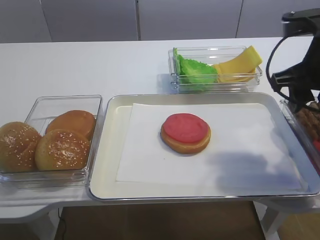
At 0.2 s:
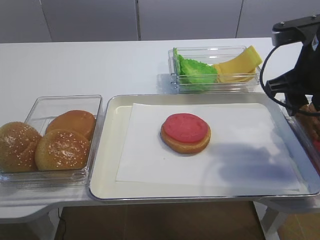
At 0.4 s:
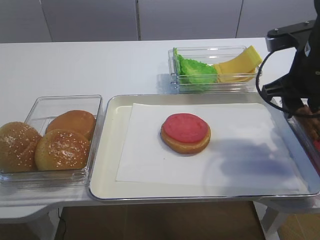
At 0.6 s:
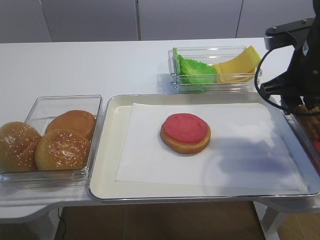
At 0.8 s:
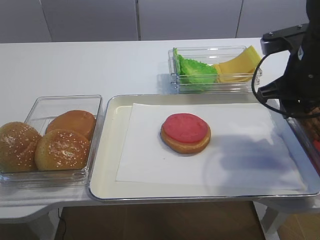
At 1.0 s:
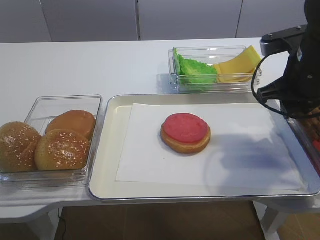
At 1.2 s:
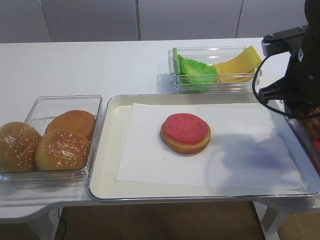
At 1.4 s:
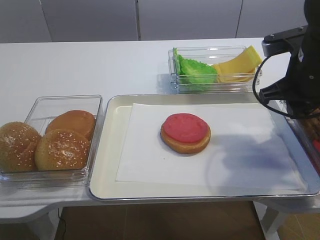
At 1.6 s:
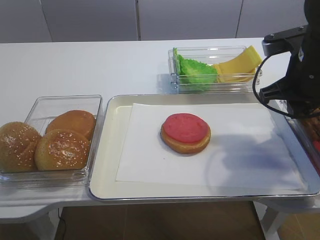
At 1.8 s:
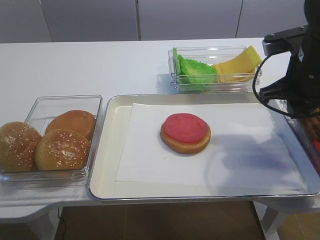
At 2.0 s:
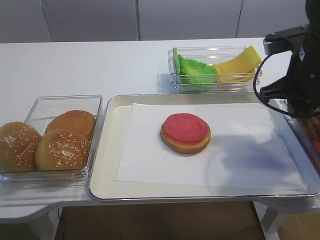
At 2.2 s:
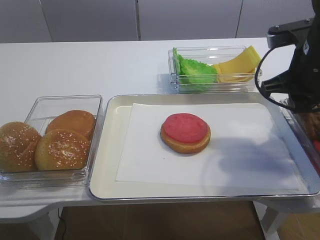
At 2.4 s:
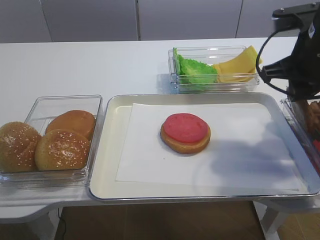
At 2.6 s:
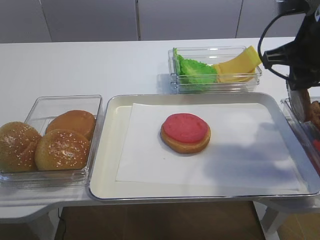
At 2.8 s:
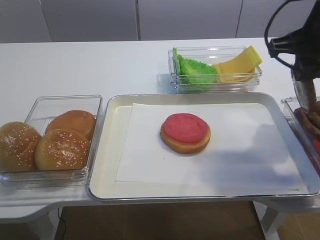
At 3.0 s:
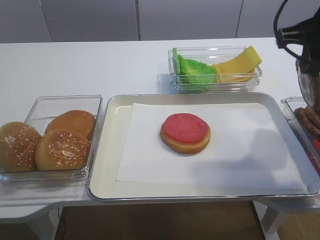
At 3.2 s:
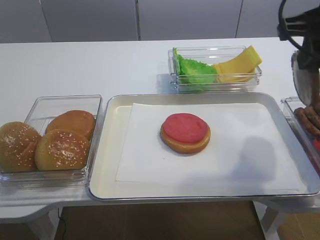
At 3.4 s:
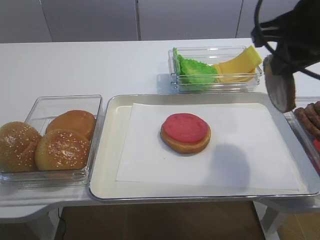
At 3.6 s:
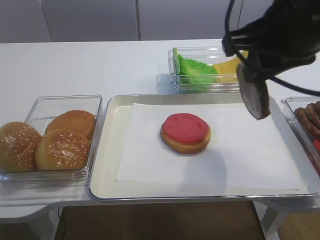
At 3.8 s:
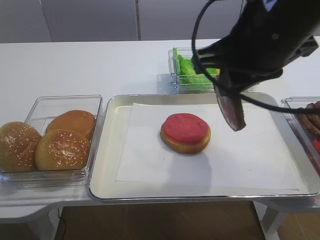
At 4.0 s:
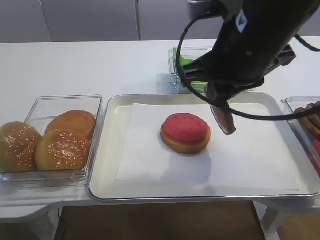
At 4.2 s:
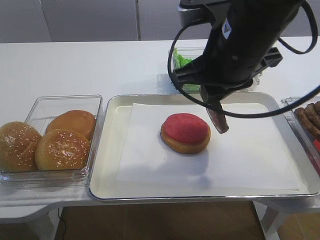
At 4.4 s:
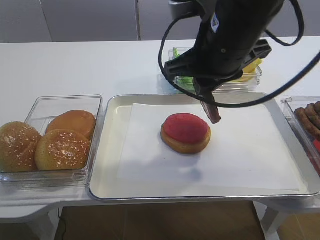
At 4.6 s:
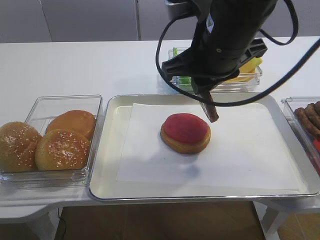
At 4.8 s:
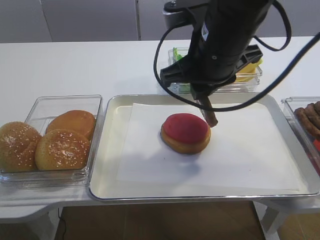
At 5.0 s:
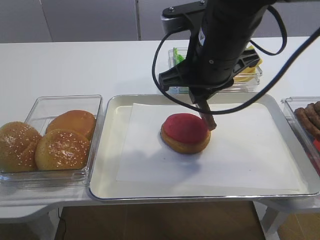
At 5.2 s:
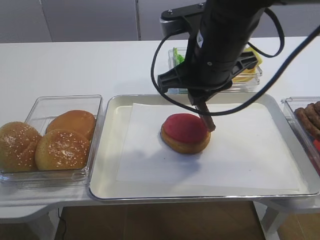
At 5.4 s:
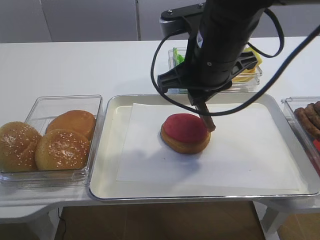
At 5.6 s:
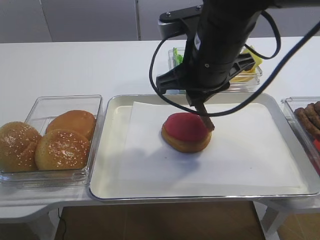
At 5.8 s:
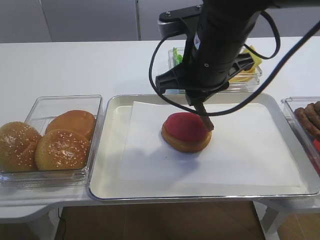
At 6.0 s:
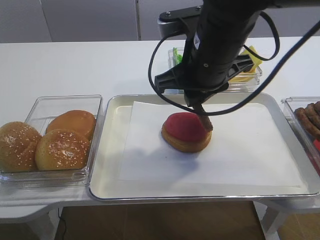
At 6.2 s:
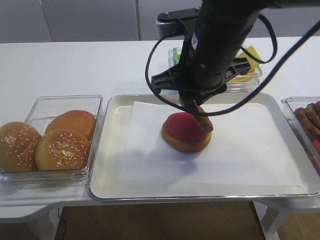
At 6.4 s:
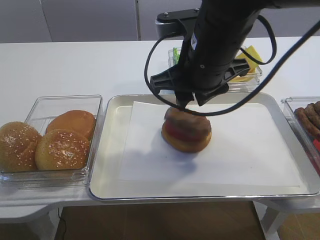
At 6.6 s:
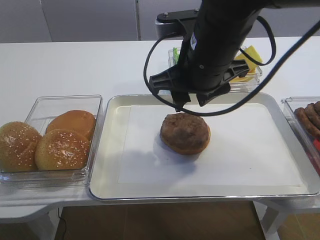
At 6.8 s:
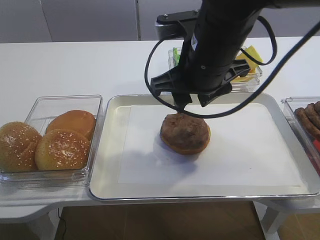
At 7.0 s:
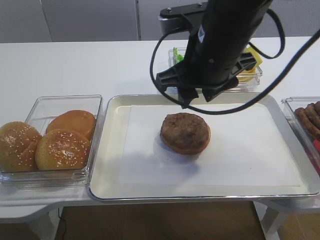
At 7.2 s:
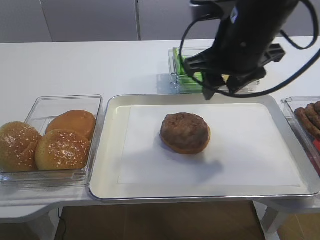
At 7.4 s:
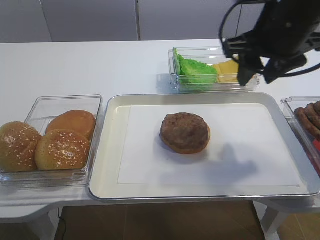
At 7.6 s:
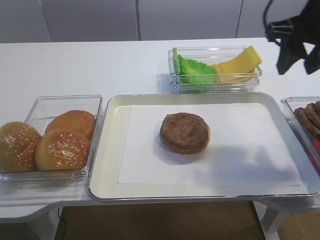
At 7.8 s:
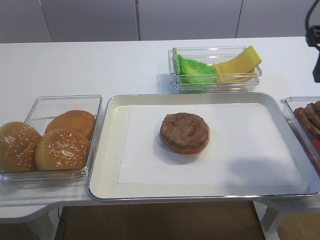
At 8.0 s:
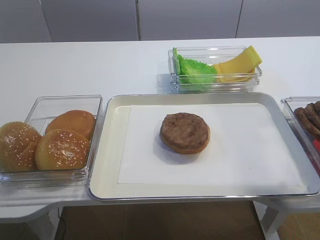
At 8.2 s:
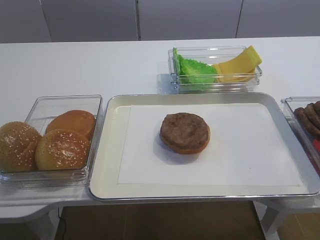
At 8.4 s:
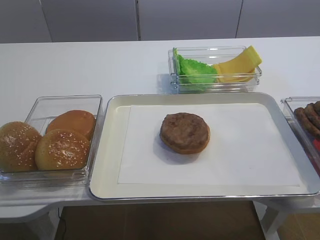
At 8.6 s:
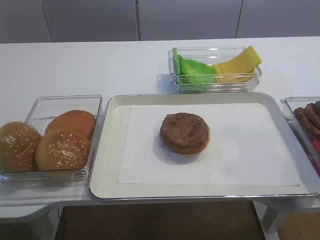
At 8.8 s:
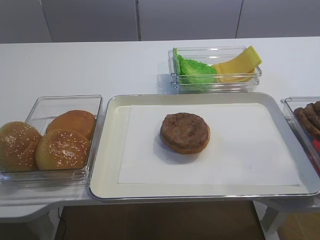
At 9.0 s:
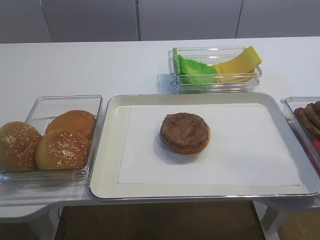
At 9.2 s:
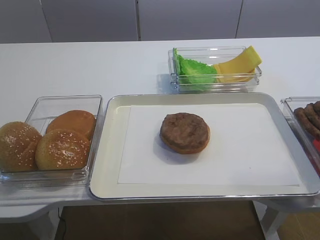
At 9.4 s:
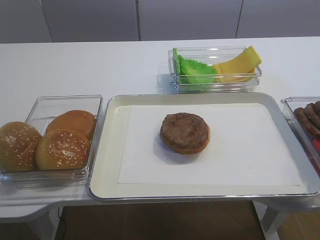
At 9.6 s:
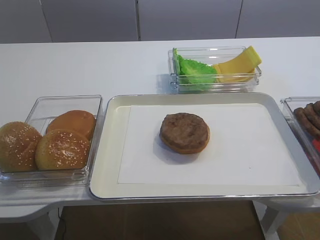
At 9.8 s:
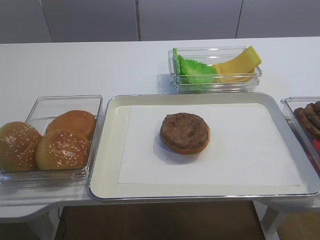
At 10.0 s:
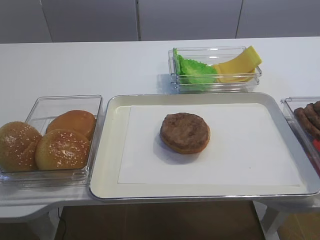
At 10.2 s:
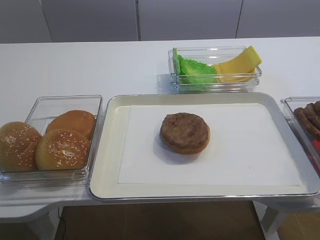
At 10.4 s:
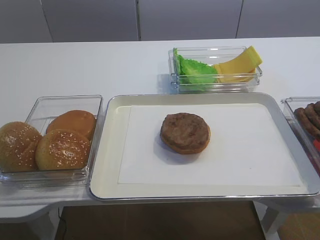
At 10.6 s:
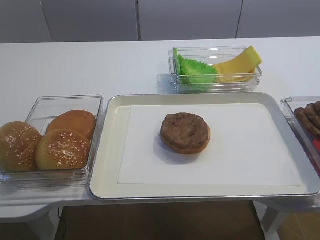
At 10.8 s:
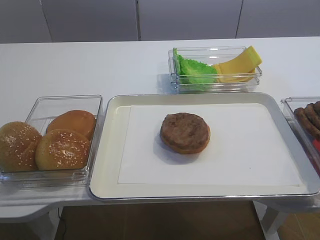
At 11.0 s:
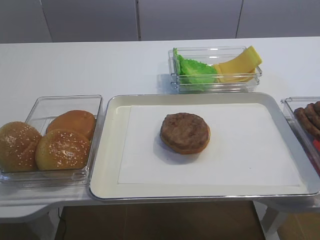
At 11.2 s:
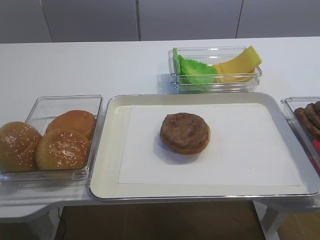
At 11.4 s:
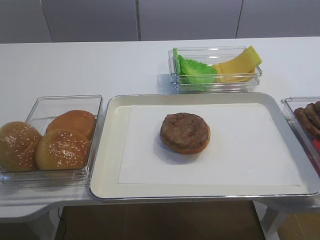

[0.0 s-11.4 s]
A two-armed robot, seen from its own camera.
Step, 0.0 to 2.4 s: Pick up the cutlet with the right gripper.
Step, 2.6 to 7.0 s: Place the cutlet on the tomato slice with the right gripper.
0.0 to 1.4 s: The right gripper moves approximately 5 cm, and closes.
1.4 to 2.8 s: The right gripper travels upward by roughly 5 cm.
2.8 to 4.2 s: The right gripper goes approximately 10 cm to the left.
4.2 to 5.6 s: There are only small adjustments of the grippers.
5.6 to 7.2 s: The right gripper opens its fingers.
7.2 to 8.6 s: The right gripper travels backward and to the right by roughly 25 cm.

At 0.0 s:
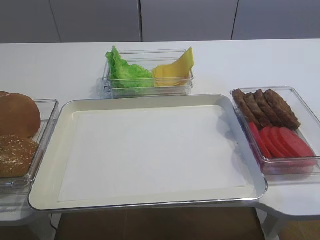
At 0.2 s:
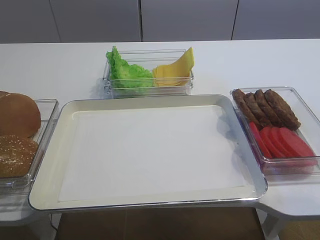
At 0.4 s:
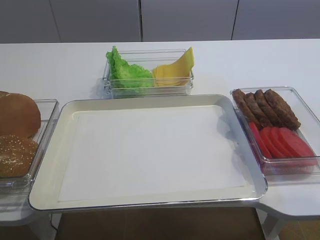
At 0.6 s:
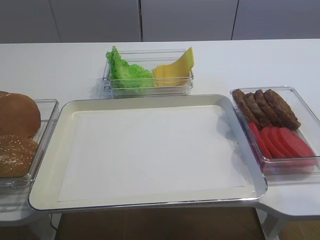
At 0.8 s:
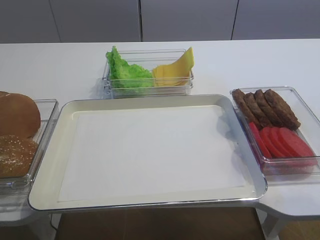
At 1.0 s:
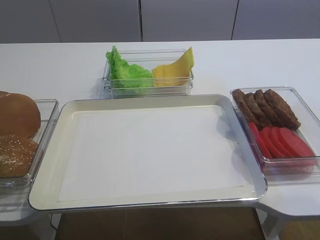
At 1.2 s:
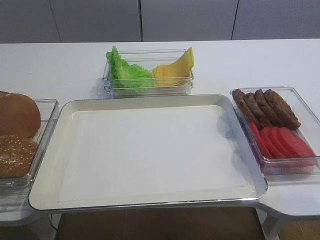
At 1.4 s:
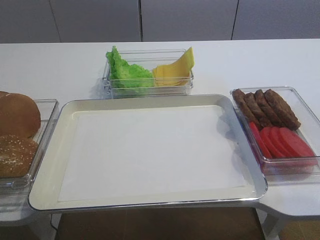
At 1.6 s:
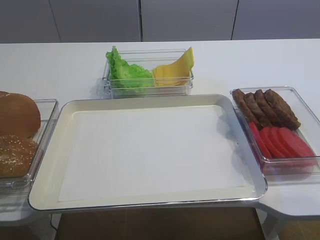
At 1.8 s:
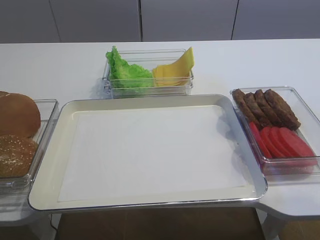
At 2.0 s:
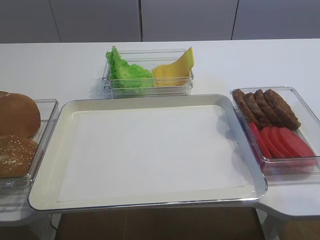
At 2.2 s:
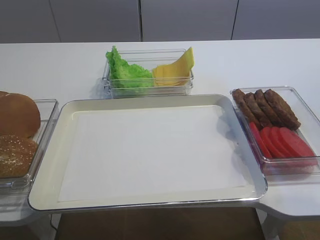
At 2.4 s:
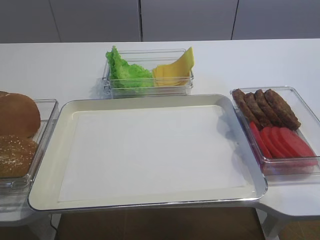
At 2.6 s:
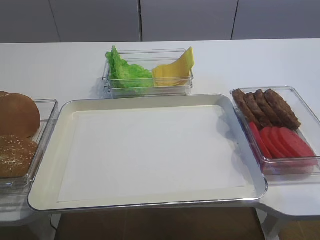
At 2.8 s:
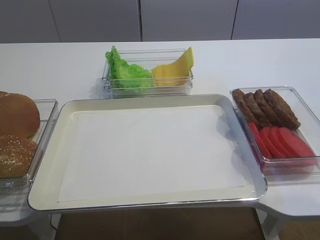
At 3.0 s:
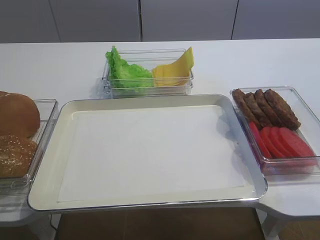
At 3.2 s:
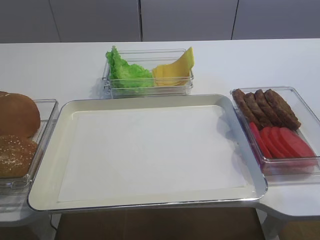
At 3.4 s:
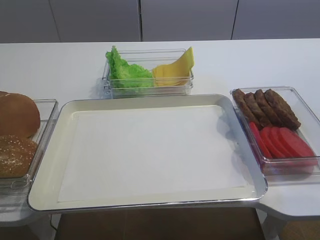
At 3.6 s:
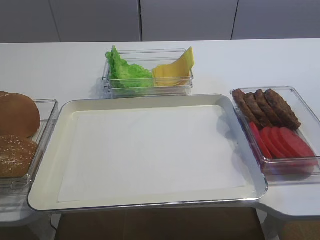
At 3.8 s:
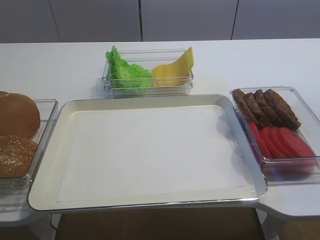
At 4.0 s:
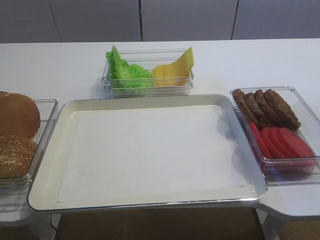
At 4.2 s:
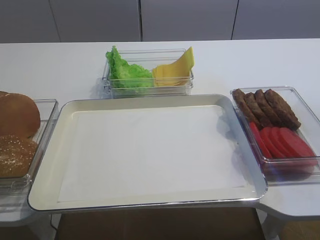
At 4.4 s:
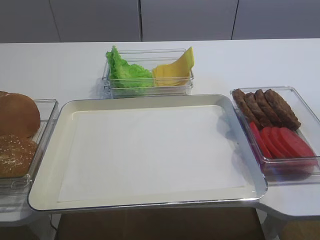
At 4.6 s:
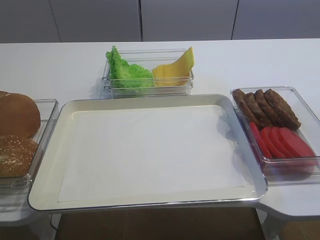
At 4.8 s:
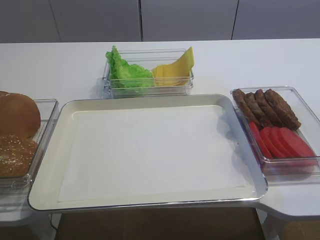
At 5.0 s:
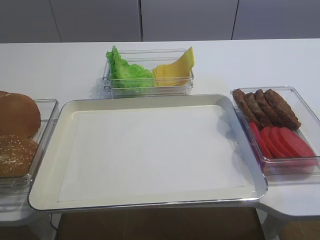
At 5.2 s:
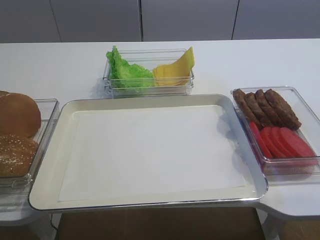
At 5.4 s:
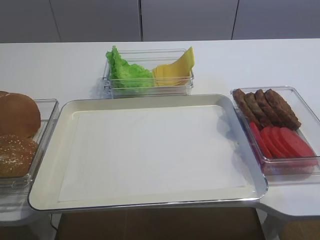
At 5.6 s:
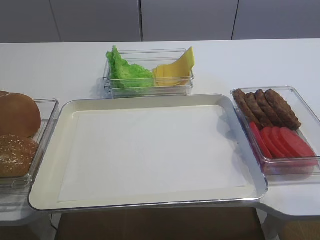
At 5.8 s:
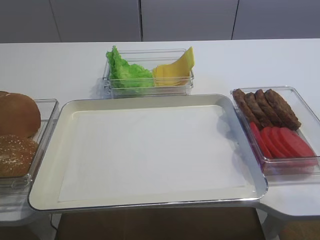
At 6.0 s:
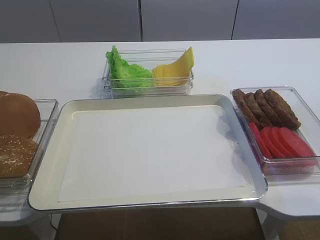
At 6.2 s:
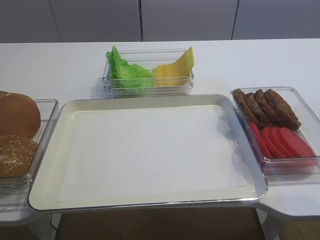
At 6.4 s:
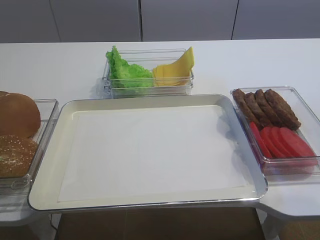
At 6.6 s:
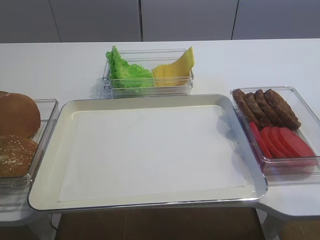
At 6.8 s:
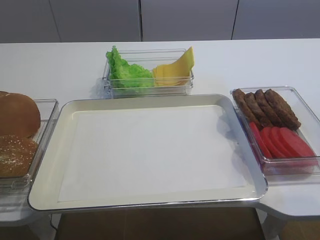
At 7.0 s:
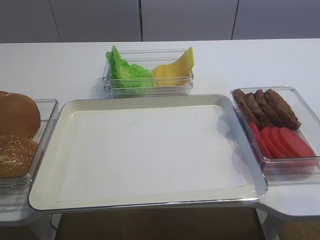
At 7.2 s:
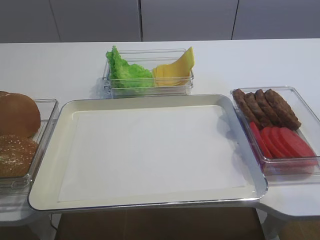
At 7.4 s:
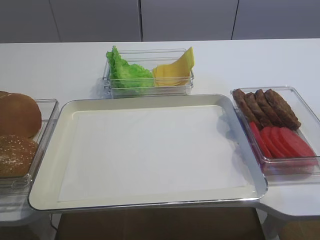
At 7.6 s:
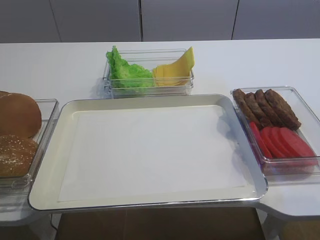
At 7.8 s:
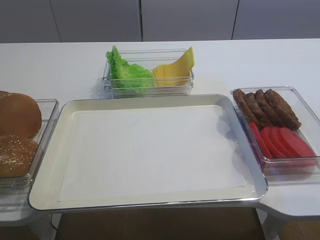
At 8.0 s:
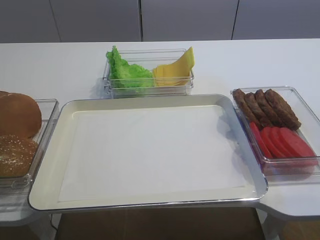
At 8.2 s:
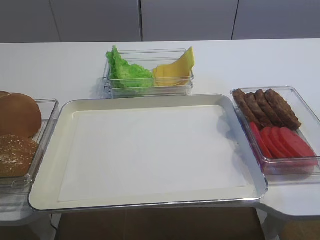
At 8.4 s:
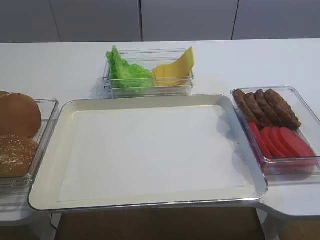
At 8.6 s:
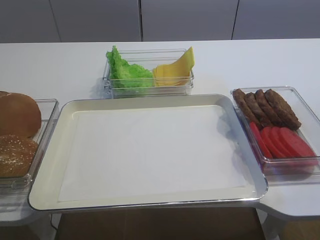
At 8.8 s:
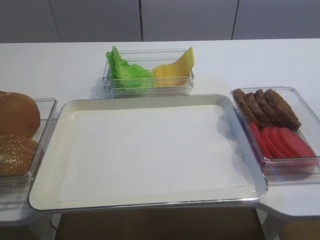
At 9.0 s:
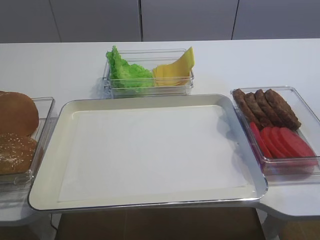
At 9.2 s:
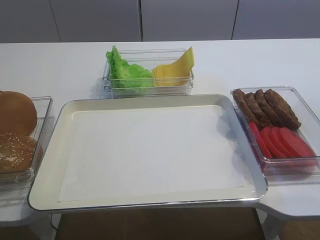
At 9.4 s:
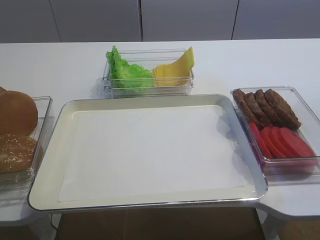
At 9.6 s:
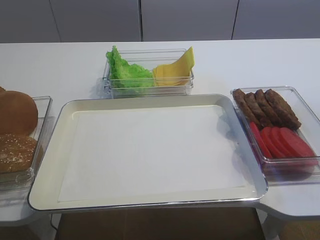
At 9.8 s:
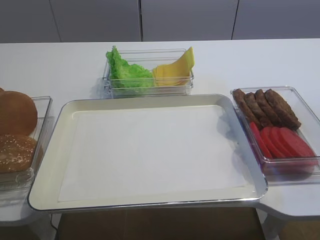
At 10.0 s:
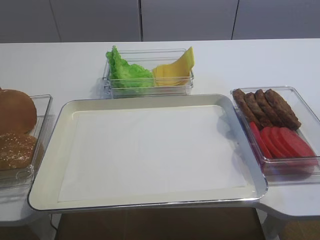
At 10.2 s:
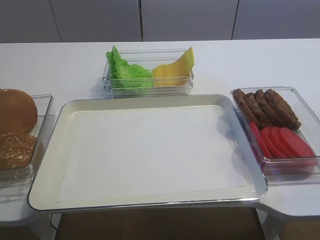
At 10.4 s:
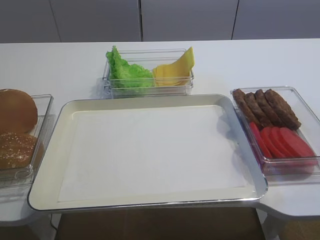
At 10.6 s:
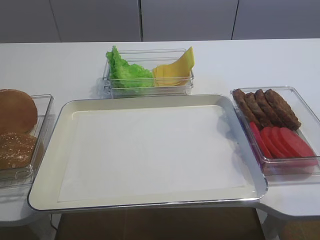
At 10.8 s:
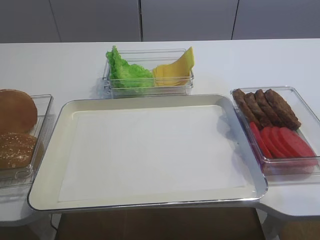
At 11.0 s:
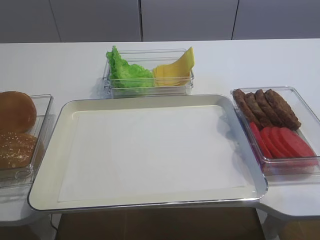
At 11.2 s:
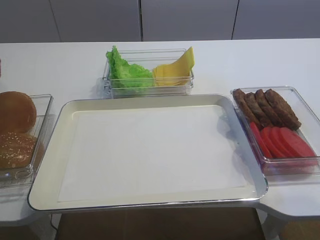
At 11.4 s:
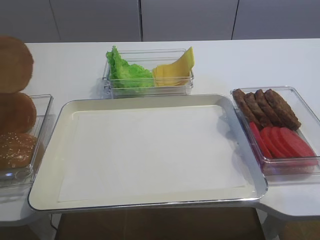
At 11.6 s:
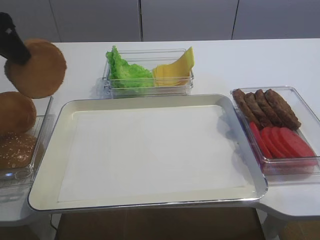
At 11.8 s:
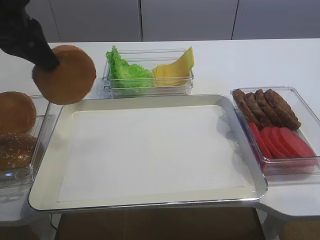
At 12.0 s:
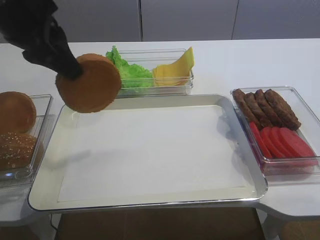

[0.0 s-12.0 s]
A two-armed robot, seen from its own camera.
4.4 to 6.0 s: The grippers stay close to where they were, moving slightly.
6.0 to 7.6 s: The two grippers keep their place.
7.6 to 9.0 s: The left gripper closes its fingers.
9.0 to 10.4 s: The grippers stay close to where they were, moving slightly.
10.4 to 12.0 s: The left gripper moves to the right, some 20 cm.
